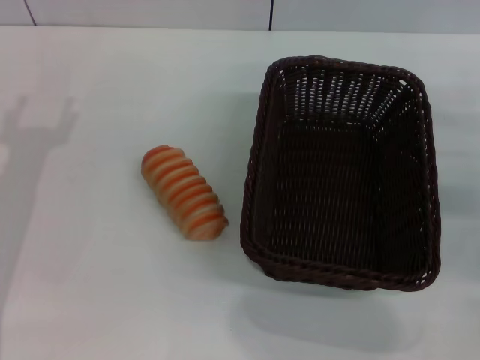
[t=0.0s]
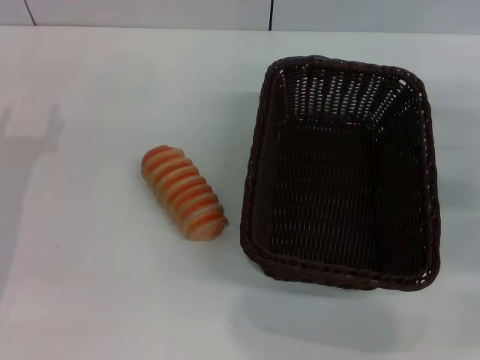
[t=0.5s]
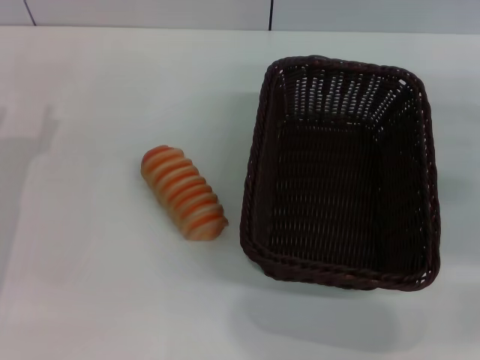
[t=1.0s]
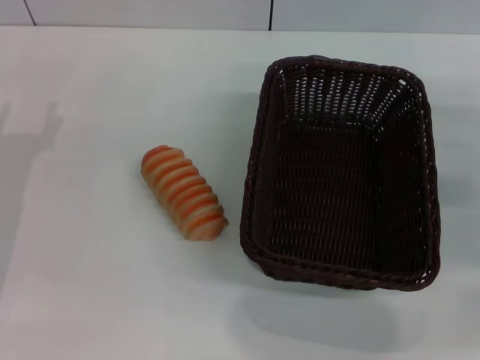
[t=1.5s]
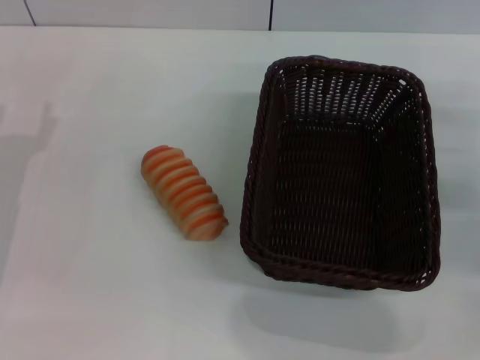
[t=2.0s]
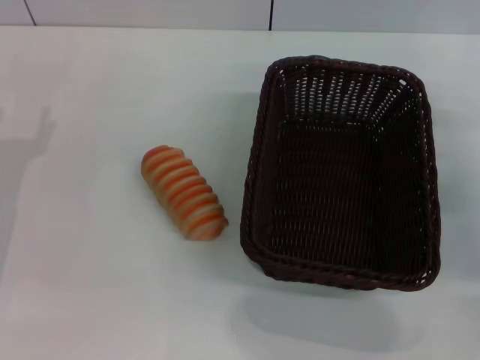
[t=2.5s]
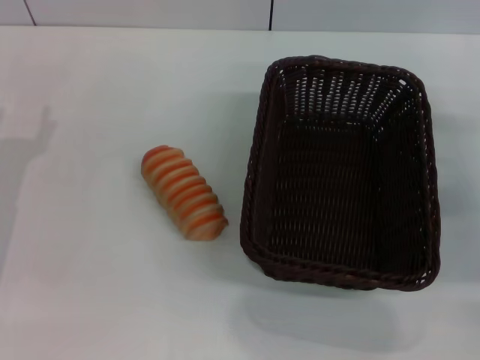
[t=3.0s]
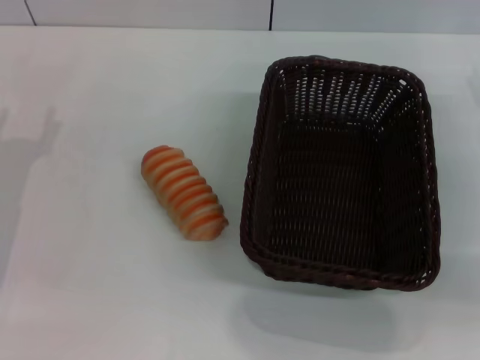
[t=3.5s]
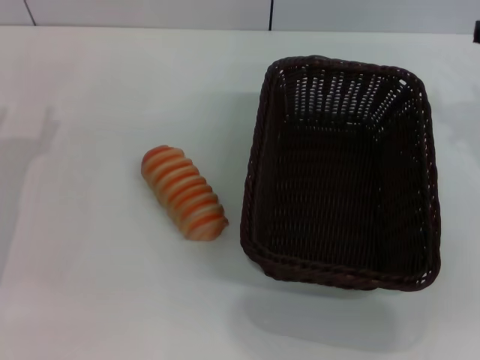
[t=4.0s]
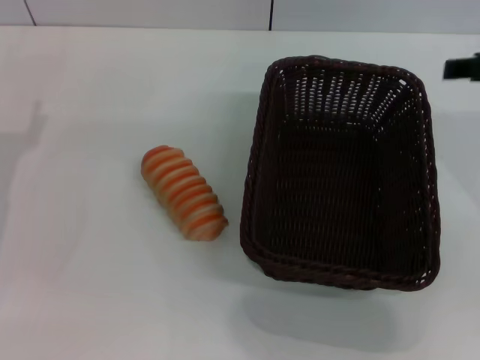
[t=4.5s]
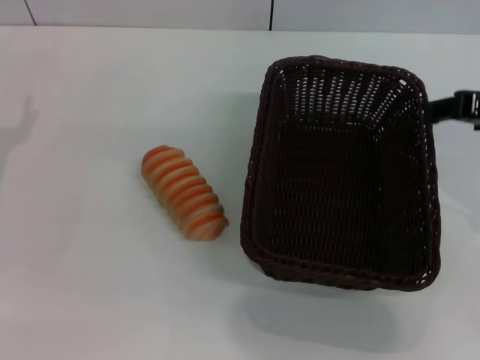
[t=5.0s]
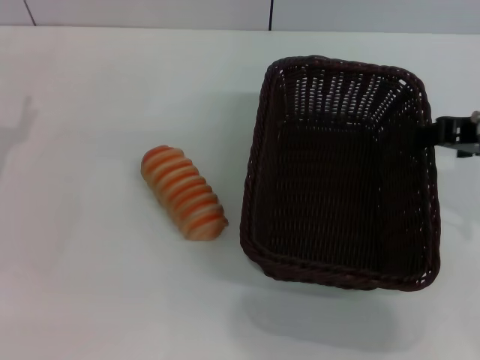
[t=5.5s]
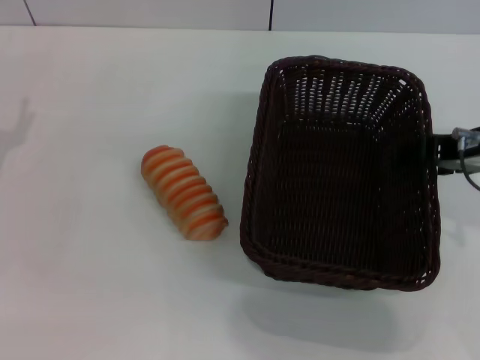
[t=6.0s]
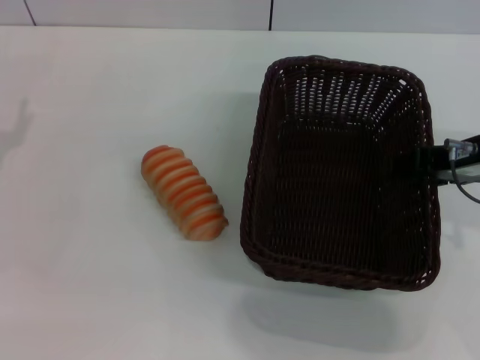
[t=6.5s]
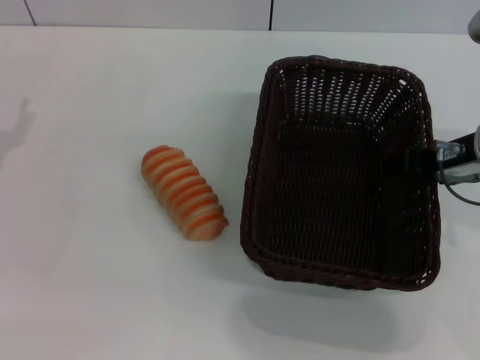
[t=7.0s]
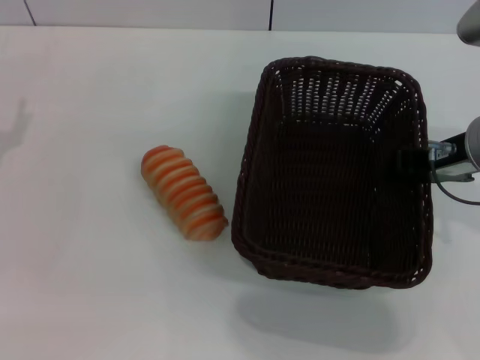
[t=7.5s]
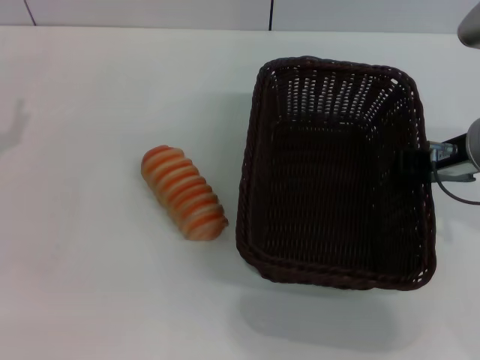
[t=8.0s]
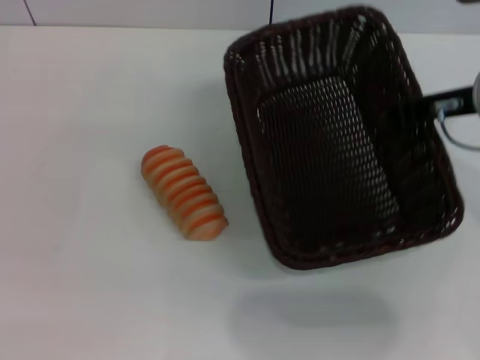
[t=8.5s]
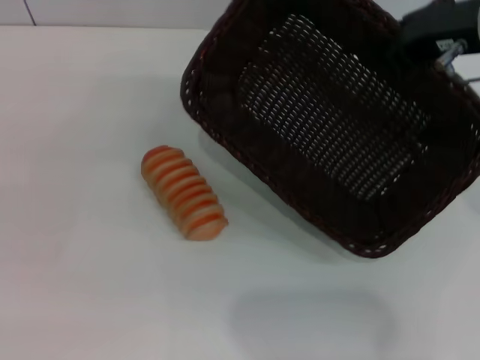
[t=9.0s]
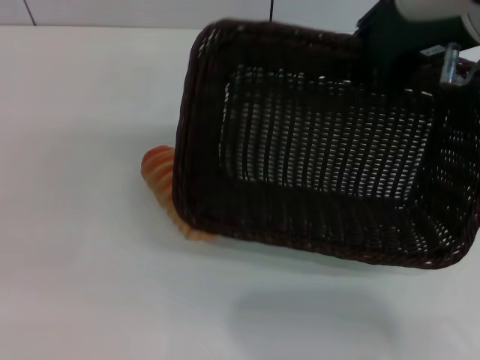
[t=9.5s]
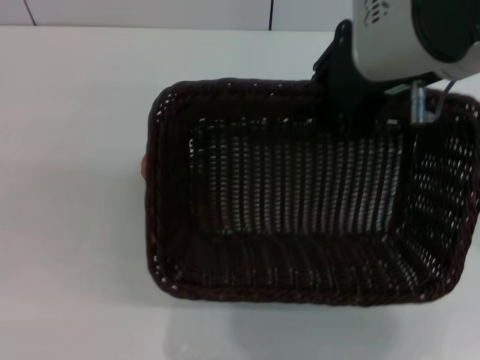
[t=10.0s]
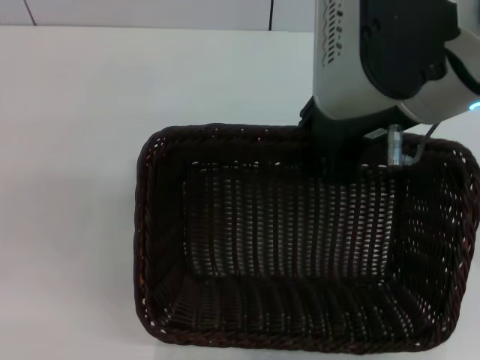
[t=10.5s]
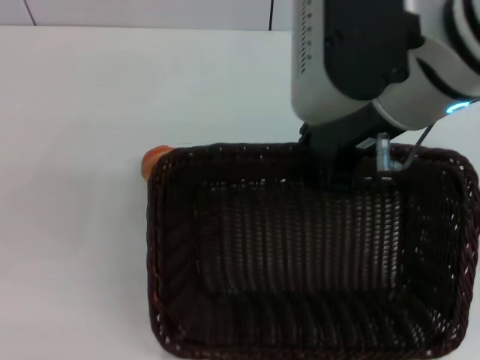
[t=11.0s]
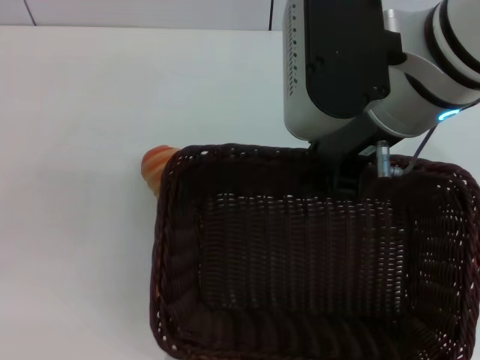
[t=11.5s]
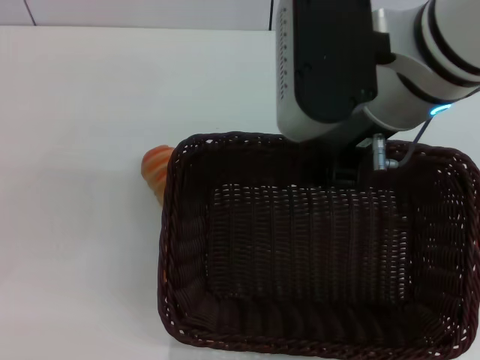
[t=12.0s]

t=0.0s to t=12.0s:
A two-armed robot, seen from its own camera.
Step, t=0.0s to t=9.0s: Pick up the dark basket with the right gripper.
t=2.0s to t=4.0s: The right gripper shifts roughly 15 cm upward and to the left, and opens.
t=4.0s to t=6.0s: The right gripper is displaced to the left by approximately 5 cm.
t=6.0s to t=8.0s: The right gripper closes up.
t=8.0s to t=10.0s: The right gripper heads upward and to the left, covering roughly 15 cm.
t=10.0s to t=12.0s: The right gripper changes place by about 5 cm.

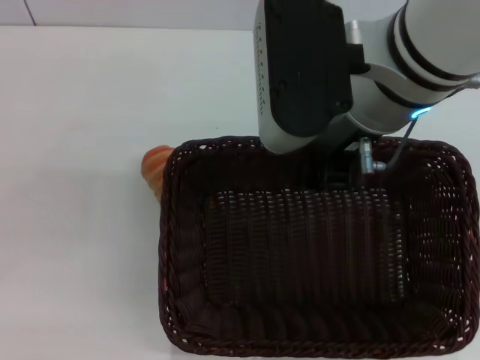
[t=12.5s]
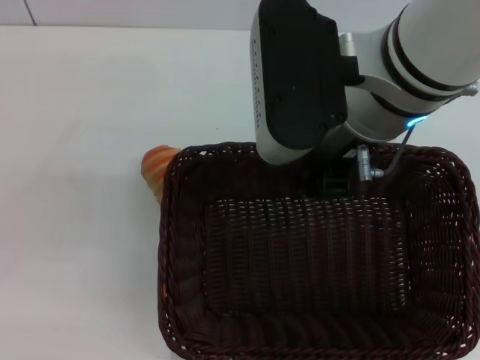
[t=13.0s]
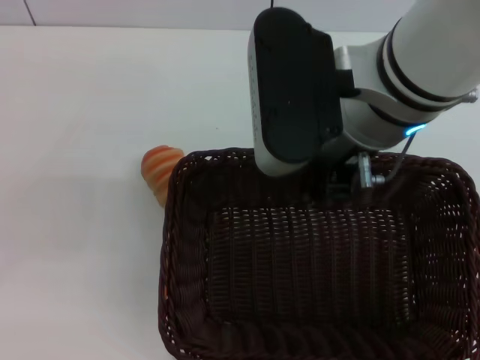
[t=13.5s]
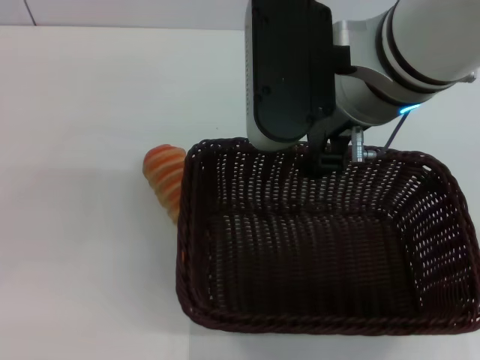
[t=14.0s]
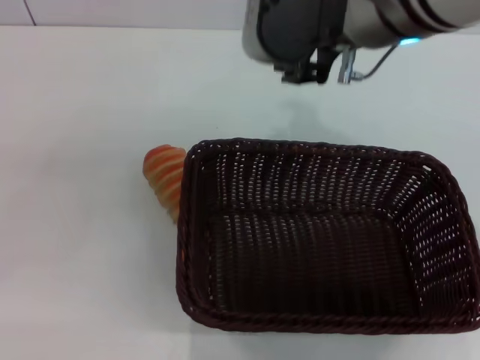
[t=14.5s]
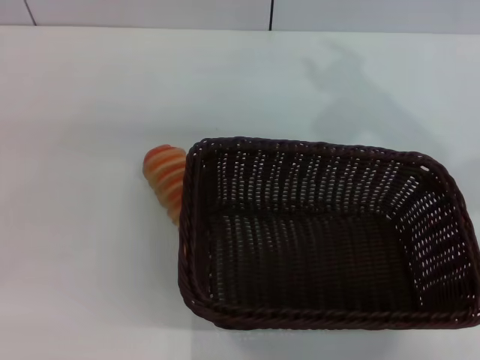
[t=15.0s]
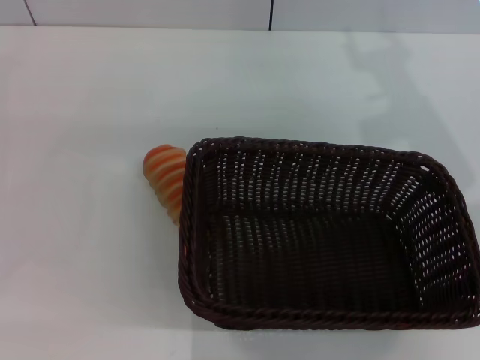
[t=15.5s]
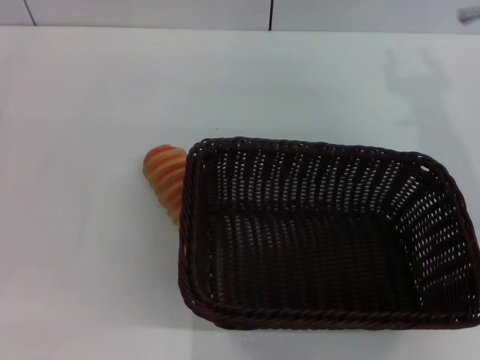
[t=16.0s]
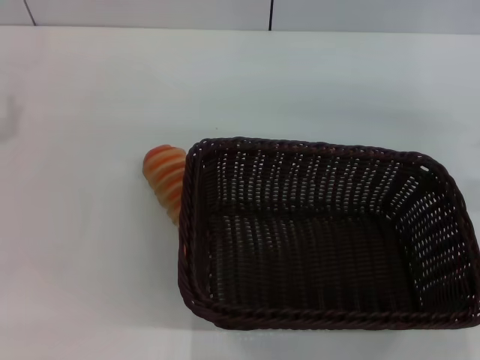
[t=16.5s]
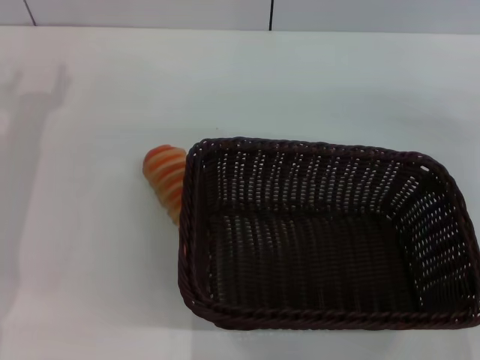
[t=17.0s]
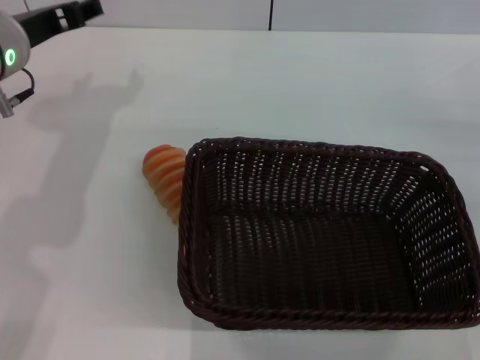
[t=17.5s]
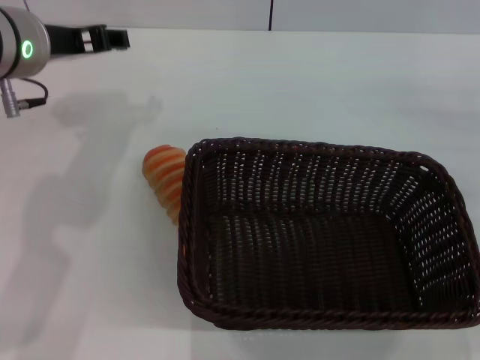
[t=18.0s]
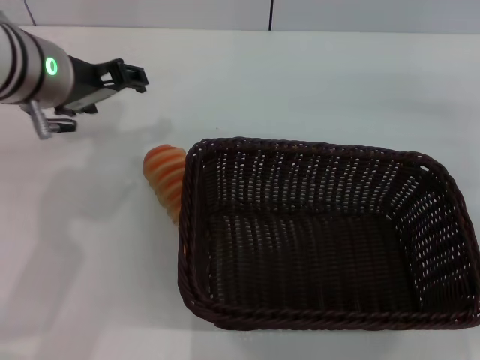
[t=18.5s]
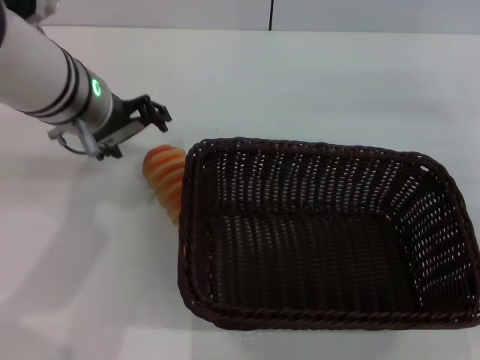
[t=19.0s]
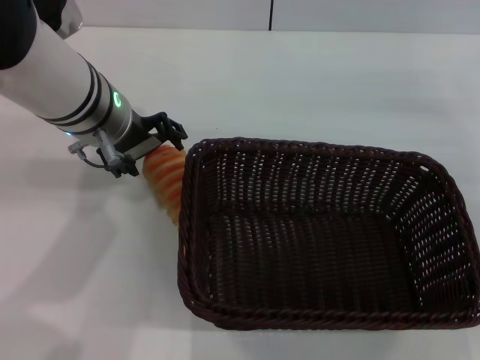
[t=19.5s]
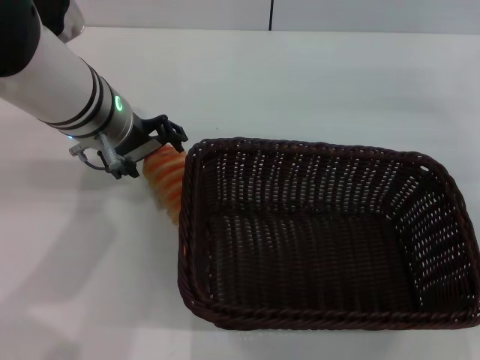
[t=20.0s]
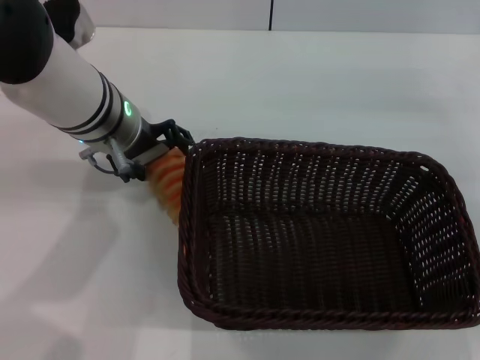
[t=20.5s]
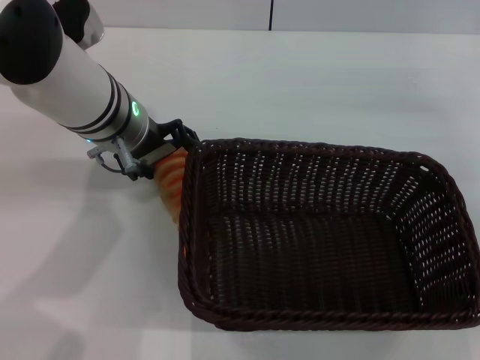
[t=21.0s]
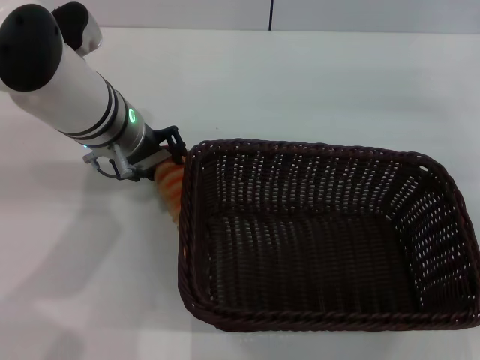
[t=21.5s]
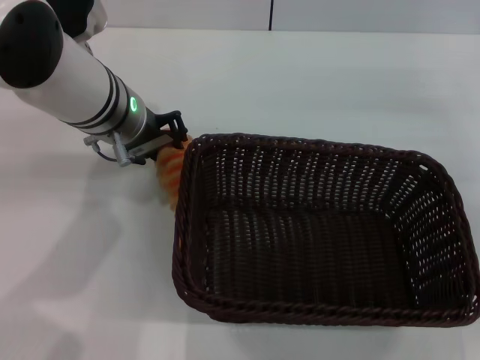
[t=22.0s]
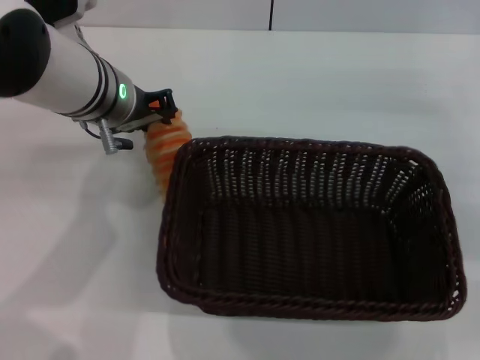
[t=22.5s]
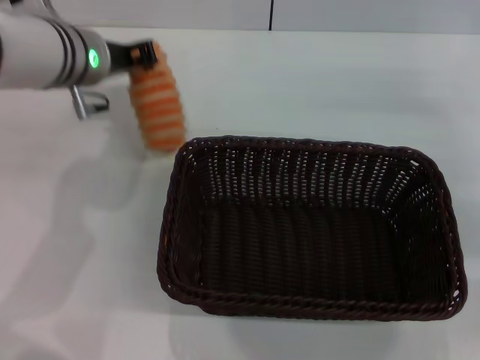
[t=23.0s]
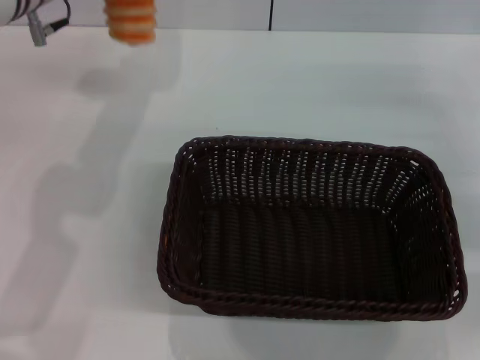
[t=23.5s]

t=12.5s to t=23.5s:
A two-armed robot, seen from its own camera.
Step, t=12.5s to t=14.5s: Place the dark basket in the center of view with the right gripper.
Step, t=15.0s to t=23.5s: Pick up the long bread with the left gripper.
t=12.5s to t=14.5s: The right gripper opens.
t=14.5s to t=16.0s: The right gripper is displaced to the right and downward by approximately 20 cm.
t=16.0s to t=18.0s: The left gripper travels to the right, upward and forward by about 20 cm; the right gripper is displaced to the right by approximately 15 cm.
t=18.0s to t=20.0s: The left gripper heads to the right and downward, covering some 10 cm.
t=20.0s to t=21.5s: There are only small adjustments of the grippers.
t=21.5s to t=23.5s: The left gripper shifts approximately 10 cm upward and to the left, and closes its fingers.

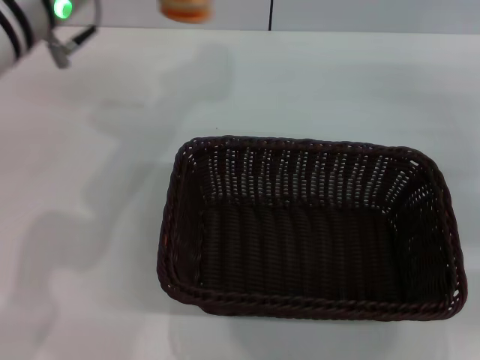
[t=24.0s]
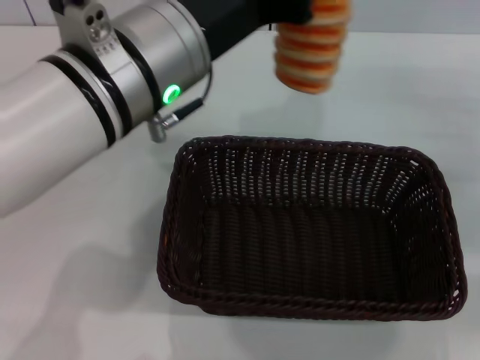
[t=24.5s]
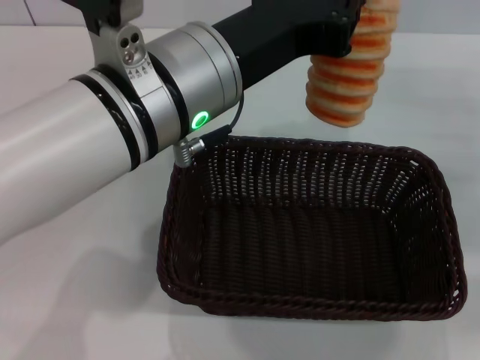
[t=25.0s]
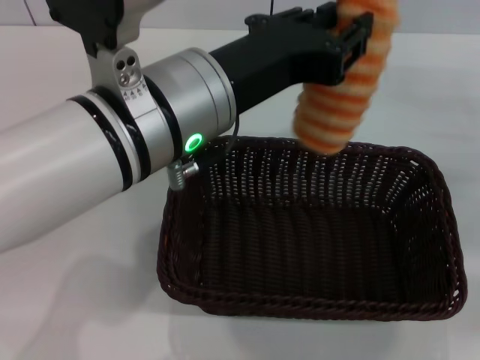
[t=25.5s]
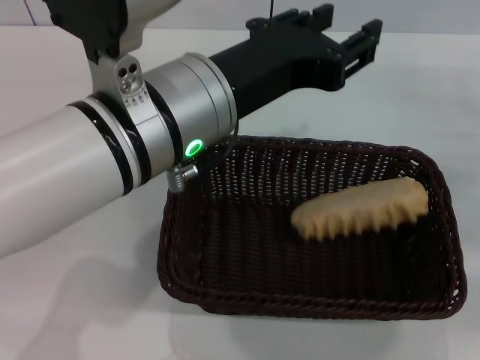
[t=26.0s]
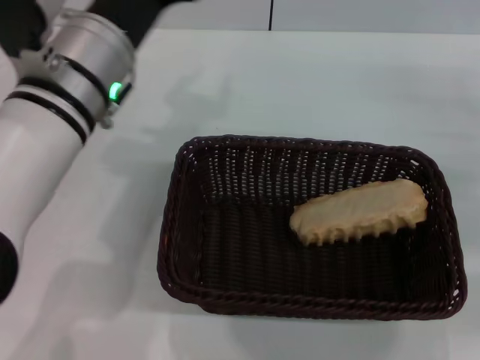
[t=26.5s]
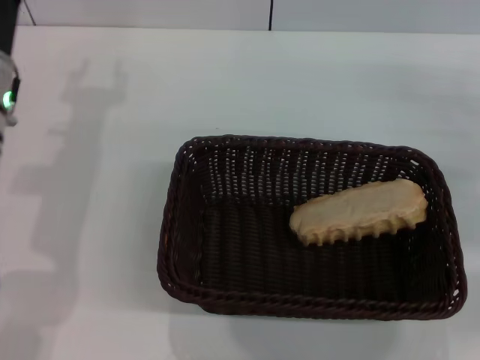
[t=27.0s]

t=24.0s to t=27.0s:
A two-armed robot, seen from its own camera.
Step, t=24.0s to t=26.0s: Place the long bread into the dark basket with the left gripper.
t=24.0s to t=25.5s: The left gripper moves to the right and backward, roughly 10 cm.
t=25.5s to t=27.0s: The left gripper is displaced to the left, downward and forward by some 20 cm, and opens up.
